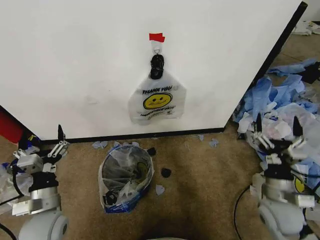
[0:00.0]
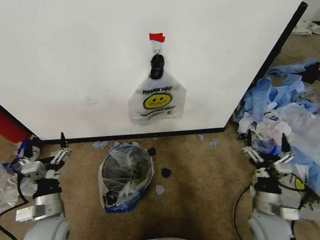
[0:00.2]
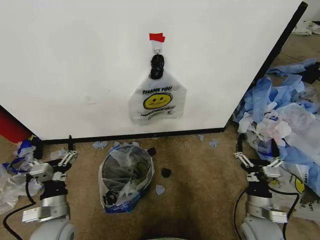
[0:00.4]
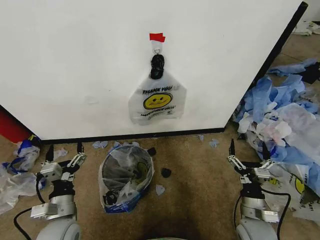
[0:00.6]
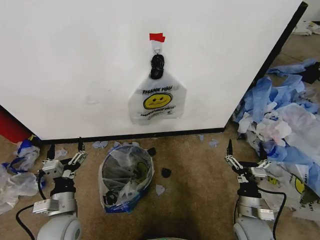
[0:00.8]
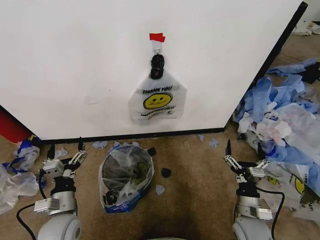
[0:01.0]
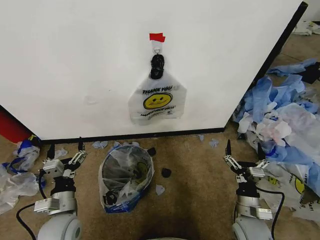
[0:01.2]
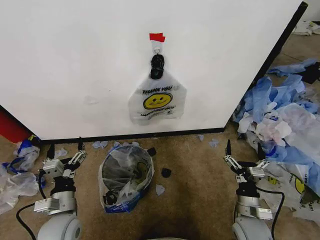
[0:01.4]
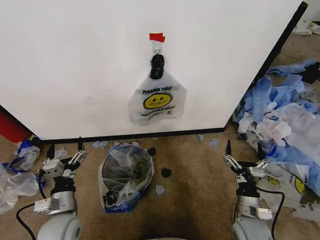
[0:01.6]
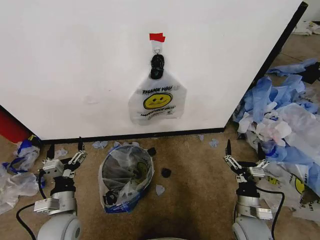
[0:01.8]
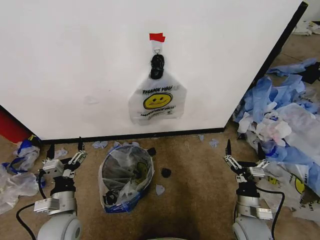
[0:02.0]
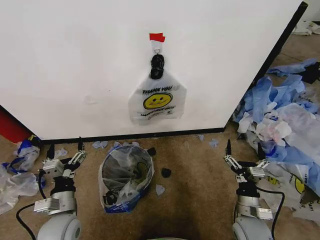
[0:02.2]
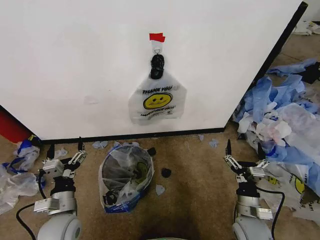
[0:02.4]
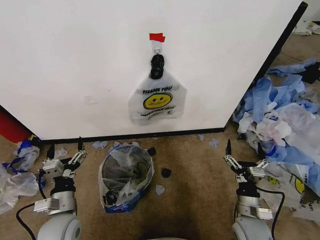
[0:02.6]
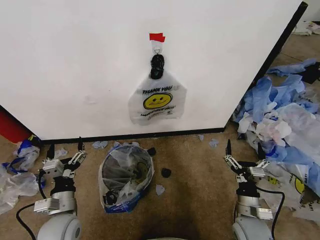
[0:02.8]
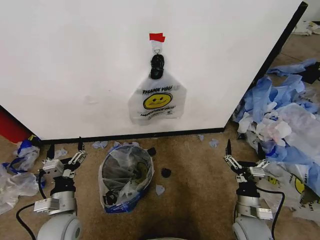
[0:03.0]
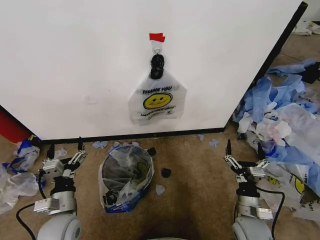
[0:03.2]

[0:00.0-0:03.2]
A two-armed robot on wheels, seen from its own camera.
Task of the whole recording: Pick up the garbage bag from the wall and place it over the trash bin.
0:00.0 to 0:01.6: The right gripper goes about 10 cm downward and to the left.
0:01.6 to 0:03.2: Neither gripper changes place.

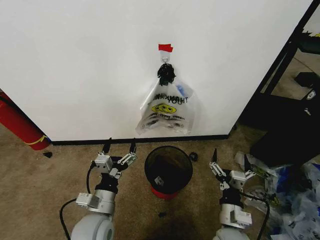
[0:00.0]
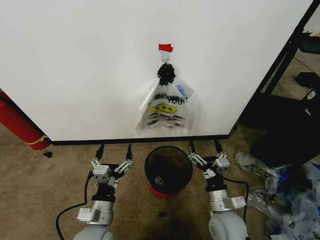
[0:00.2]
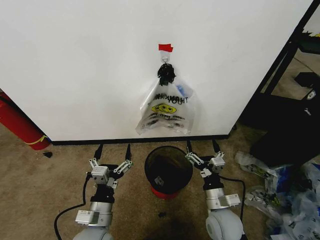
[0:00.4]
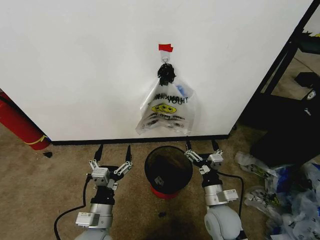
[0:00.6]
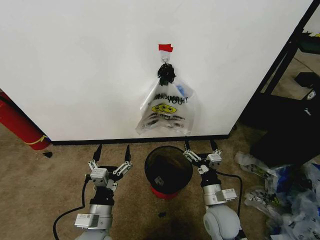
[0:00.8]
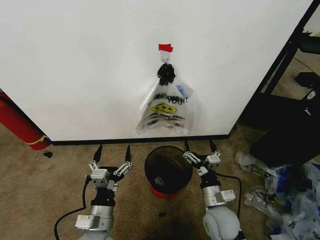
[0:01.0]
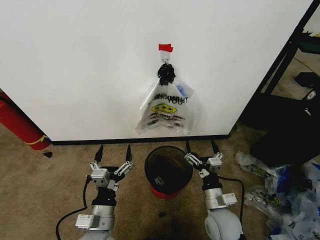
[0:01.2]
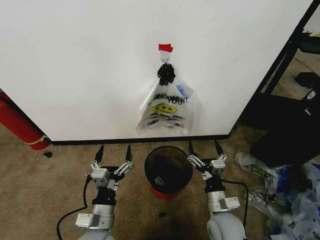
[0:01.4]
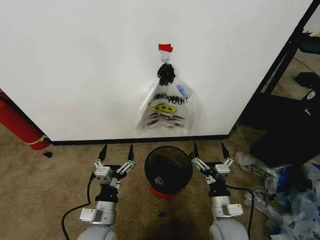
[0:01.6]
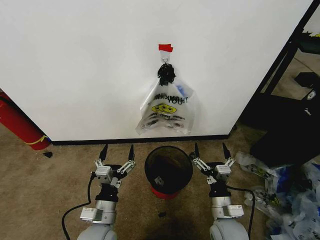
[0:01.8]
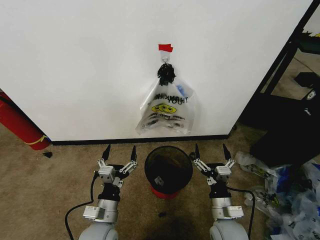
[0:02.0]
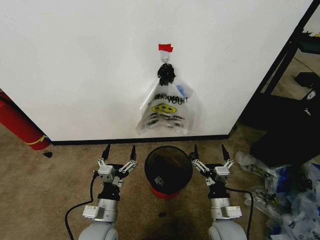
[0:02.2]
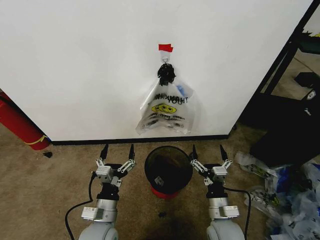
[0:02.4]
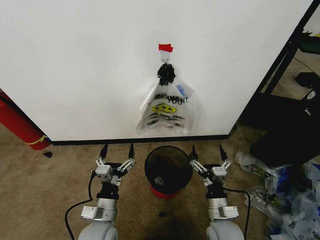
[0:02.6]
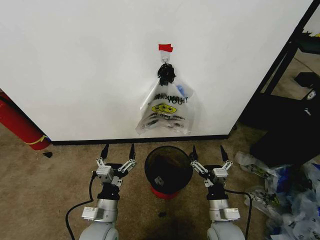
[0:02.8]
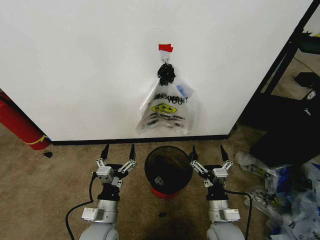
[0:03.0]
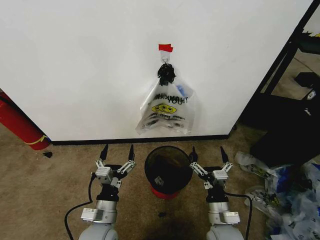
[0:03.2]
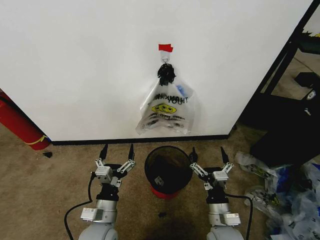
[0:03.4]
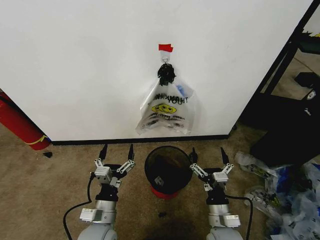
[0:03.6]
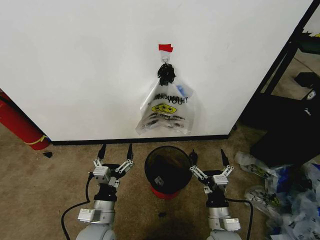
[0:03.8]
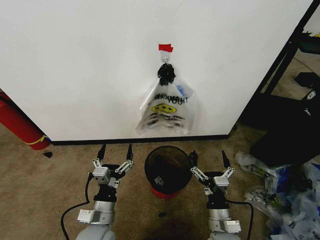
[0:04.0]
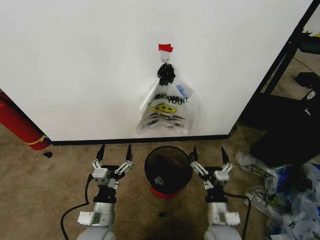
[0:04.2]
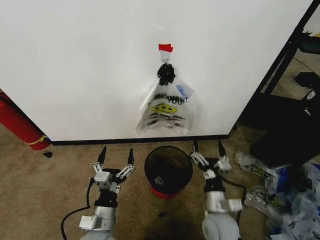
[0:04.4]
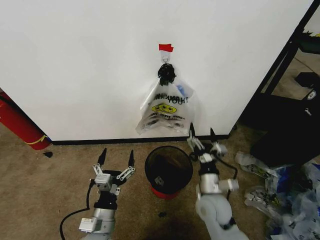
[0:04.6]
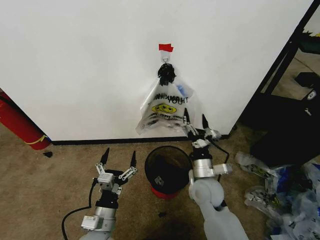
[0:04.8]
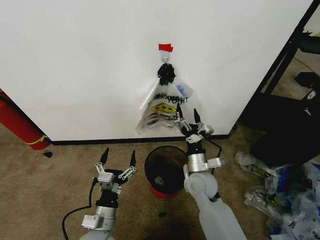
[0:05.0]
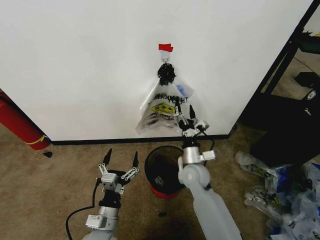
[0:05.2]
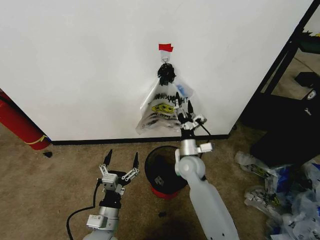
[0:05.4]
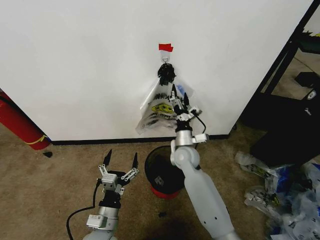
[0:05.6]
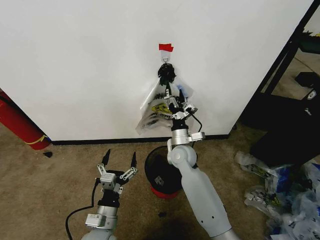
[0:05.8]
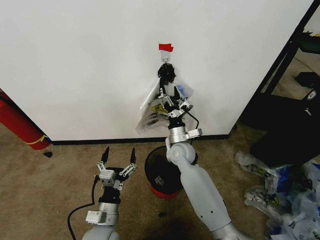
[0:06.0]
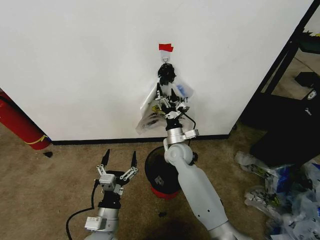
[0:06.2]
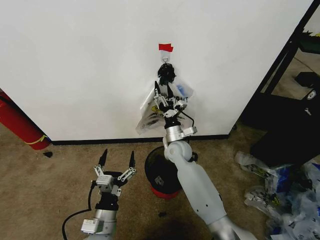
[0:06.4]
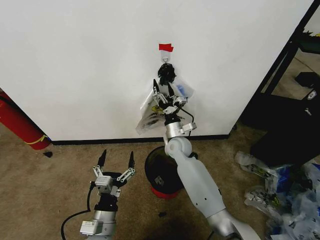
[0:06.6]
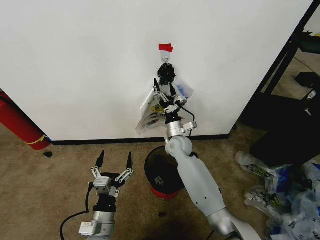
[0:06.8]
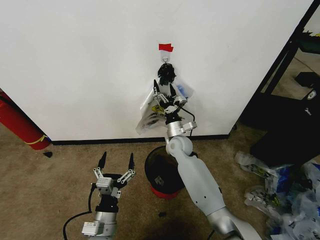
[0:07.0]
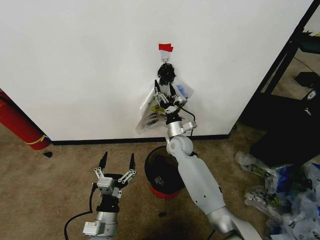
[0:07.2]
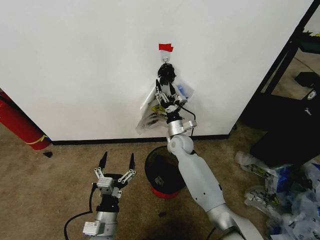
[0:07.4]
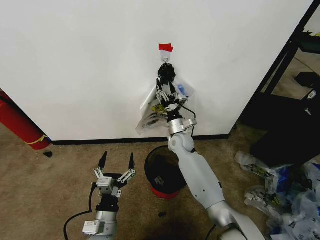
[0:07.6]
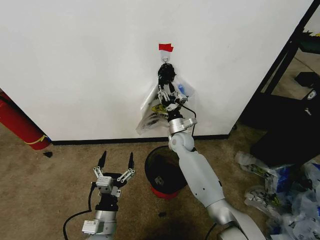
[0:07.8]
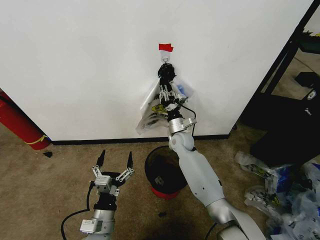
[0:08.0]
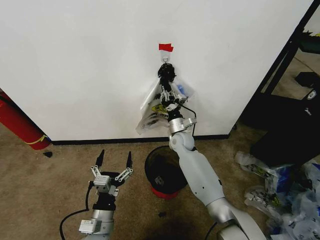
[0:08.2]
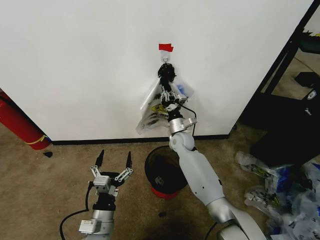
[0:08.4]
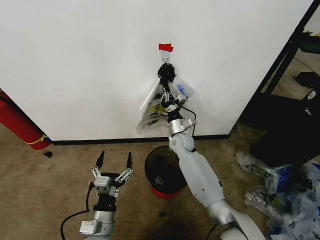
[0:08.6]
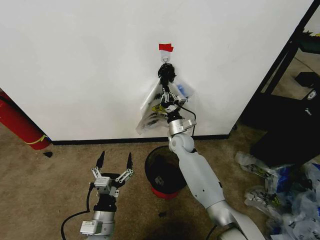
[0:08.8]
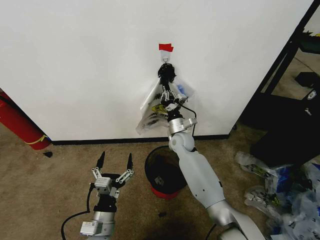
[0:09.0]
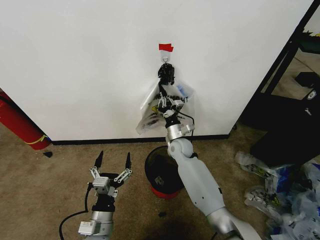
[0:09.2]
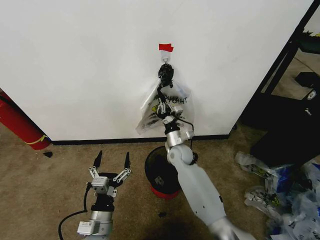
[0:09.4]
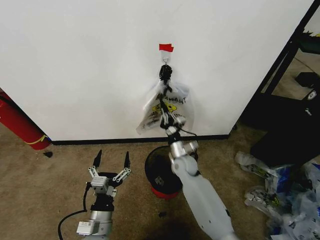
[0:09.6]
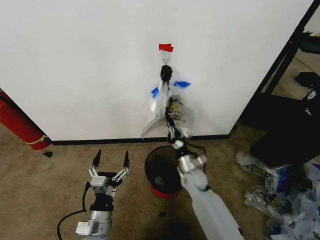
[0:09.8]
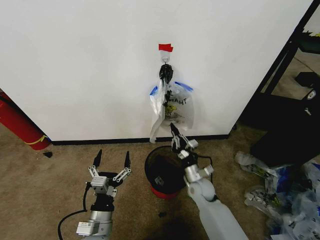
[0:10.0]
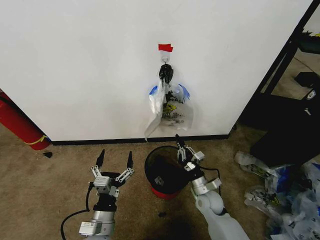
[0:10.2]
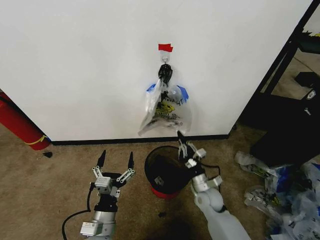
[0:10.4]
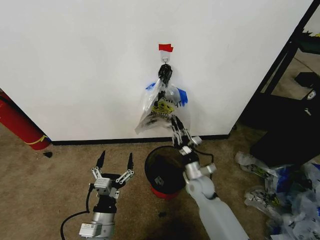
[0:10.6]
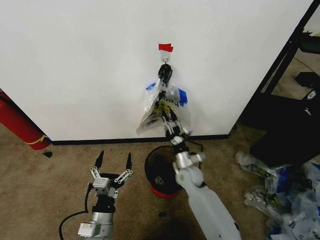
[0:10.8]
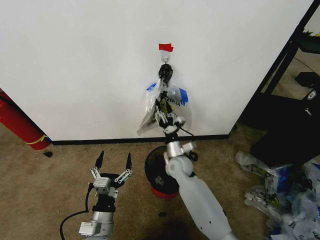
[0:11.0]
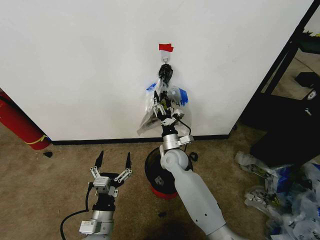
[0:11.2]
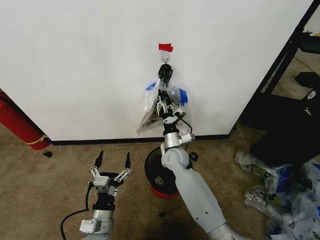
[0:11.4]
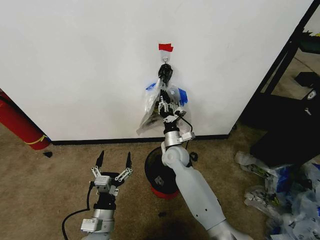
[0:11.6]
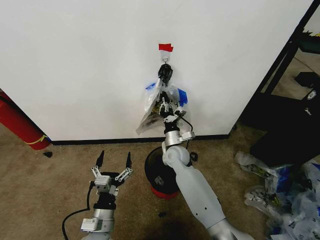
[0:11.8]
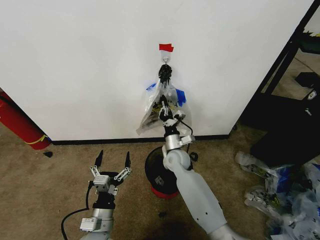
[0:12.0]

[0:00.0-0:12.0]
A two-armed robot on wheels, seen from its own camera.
Task of the whole recording: Pick up the garbage bag from the wall and place it over the trash bin.
0:01.6 to 0:04.4: The grippers move only a little.
0:04.4 to 0:06.0: The right gripper travels forward and to the left by approximately 25 cm.
0:06.0 to 0:07.6: The right gripper is displaced forward by some 5 cm.
0:07.6 to 0:09.0: The right gripper closes up.
0:09.0 to 0:10.4: The right gripper travels backward, downward and to the right by roughly 25 cm.
0:10.4 to 0:12.0: The right gripper heads forward, to the left and upward, covering some 20 cm, and opens, then closes again.

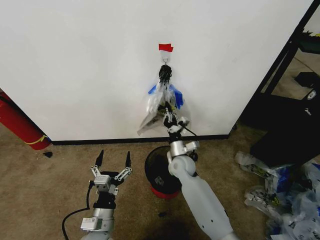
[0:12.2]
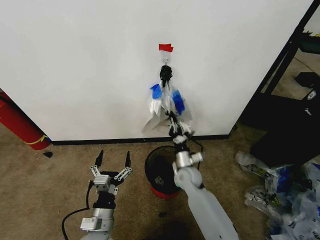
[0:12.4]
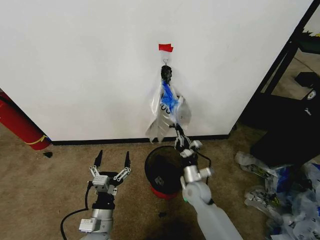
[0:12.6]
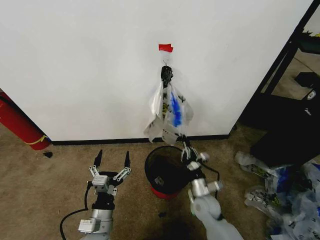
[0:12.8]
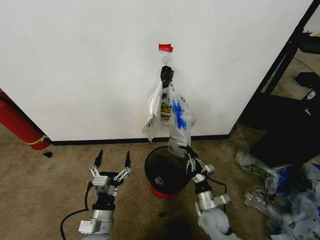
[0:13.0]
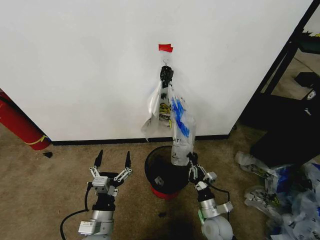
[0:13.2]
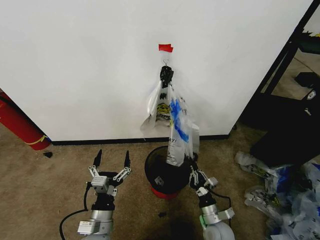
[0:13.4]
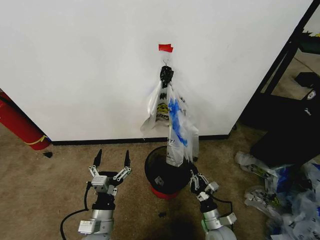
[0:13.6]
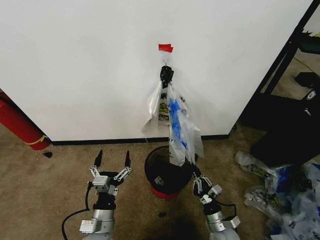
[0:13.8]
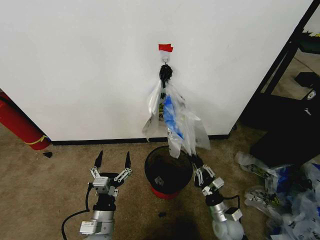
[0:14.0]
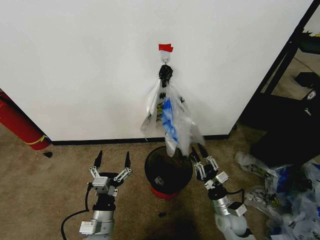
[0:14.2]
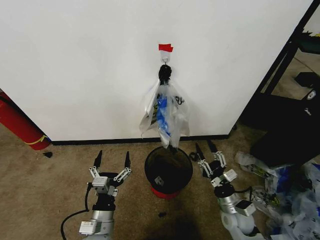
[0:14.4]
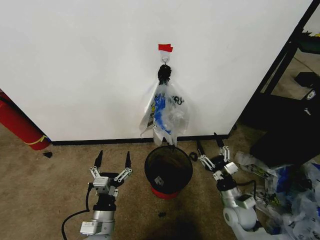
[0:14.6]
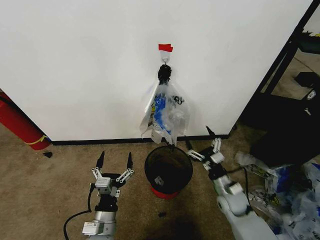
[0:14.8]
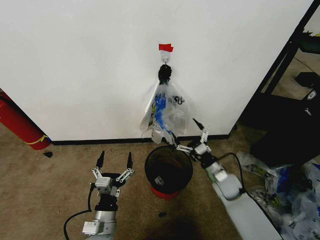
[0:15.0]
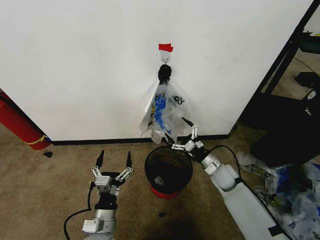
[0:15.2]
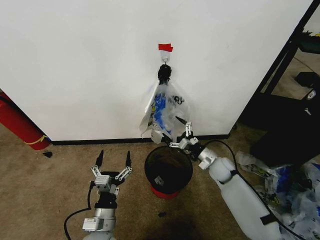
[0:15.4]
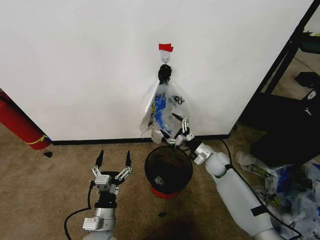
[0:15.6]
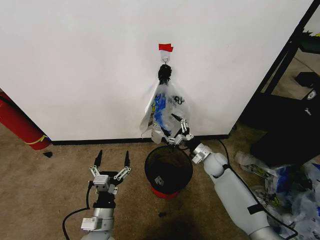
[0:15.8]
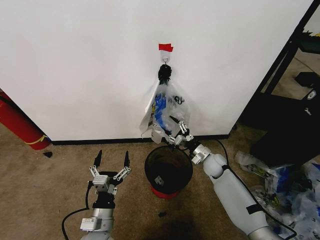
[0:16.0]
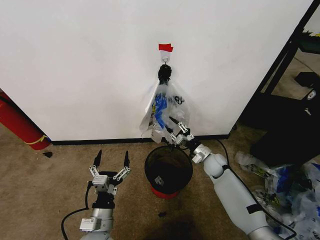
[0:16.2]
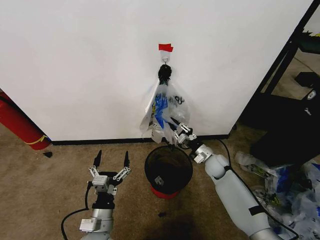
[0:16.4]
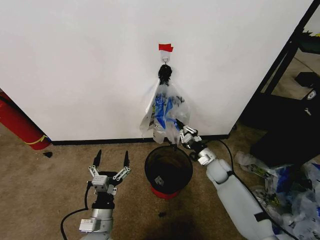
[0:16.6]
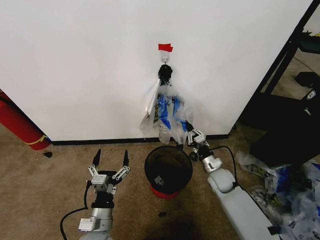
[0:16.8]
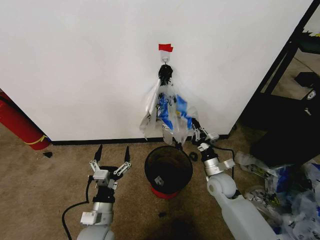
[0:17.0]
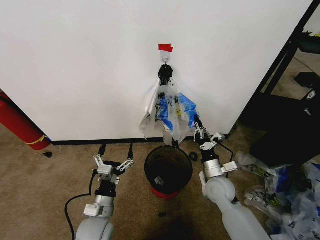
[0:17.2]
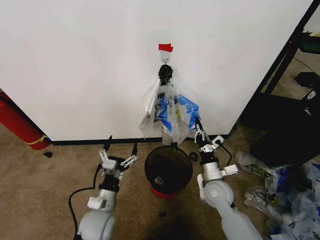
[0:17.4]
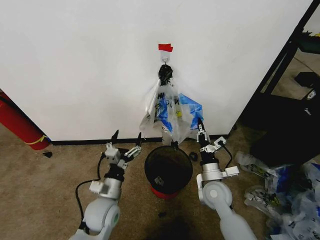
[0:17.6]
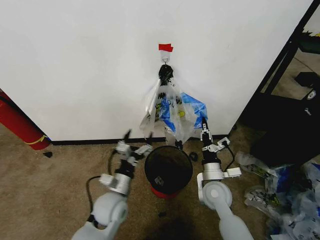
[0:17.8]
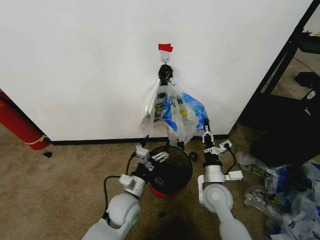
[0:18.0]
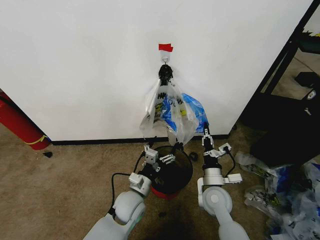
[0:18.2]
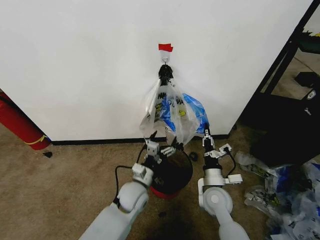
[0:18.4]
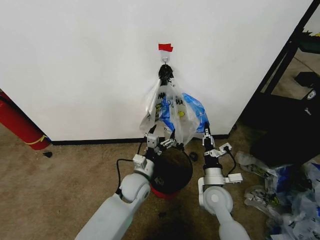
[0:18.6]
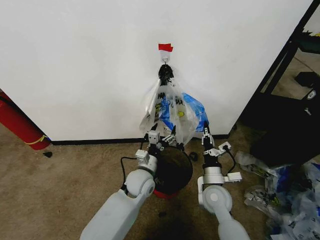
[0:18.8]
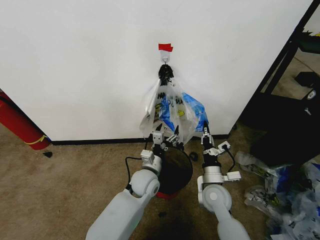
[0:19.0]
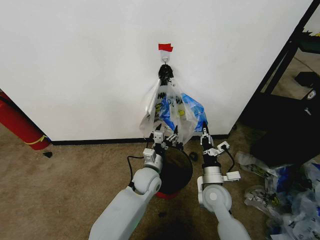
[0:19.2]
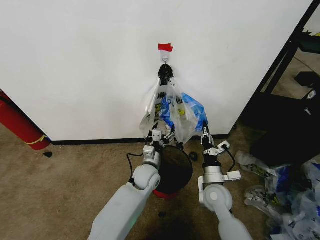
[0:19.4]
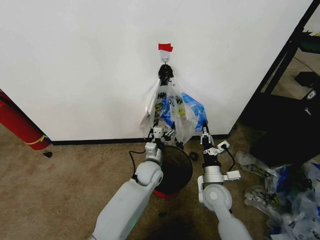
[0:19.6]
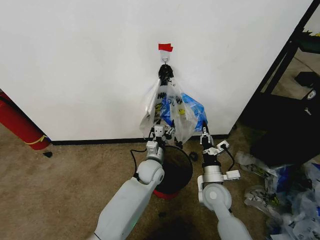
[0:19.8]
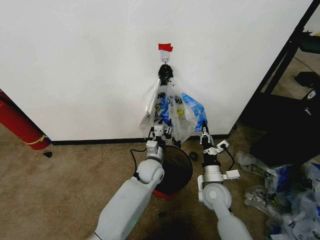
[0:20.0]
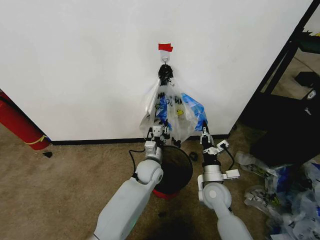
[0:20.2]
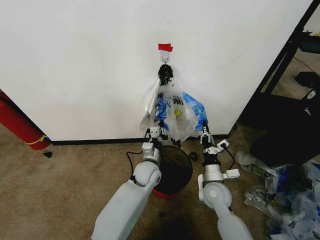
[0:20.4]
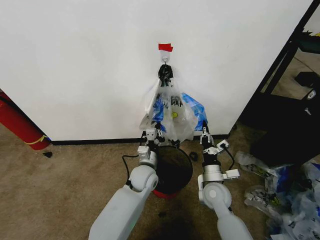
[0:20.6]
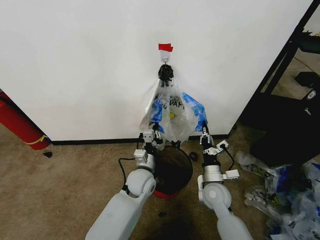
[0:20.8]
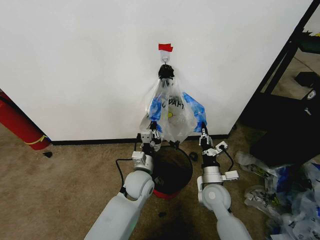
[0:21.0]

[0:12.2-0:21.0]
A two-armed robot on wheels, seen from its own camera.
Task of the whole recording: Pick up the garbage bag from the wall and place it over the trash bin.
0:12.2 to 0:13.6: The right gripper travels backward, downward and to the right by about 30 cm.
0:13.6 to 0:15.2: The right gripper is displaced forward and upward by some 20 cm, and opens its fingers.
0:15.2 to 0:16.6: The right gripper closes up.
0:16.6 to 0:18.0: The right gripper heads backward, to the left and upward, covering some 15 cm; the left gripper moves forward and to the right, roughly 10 cm.
0:18.0 to 0:19.6: The left gripper shifts about 15 cm forward and to the right.
0:19.6 to 0:21.0: The left gripper moves backward, some 5 cm, and closes.